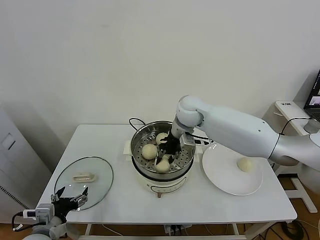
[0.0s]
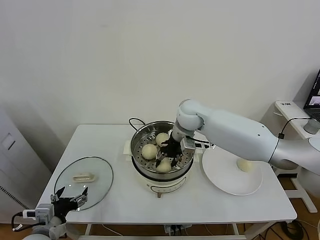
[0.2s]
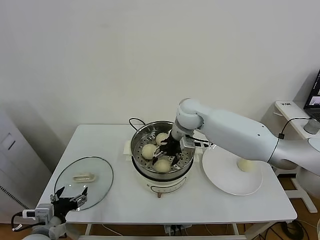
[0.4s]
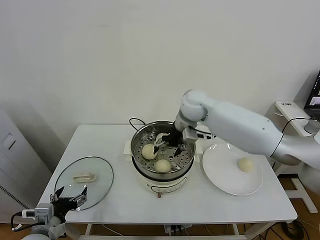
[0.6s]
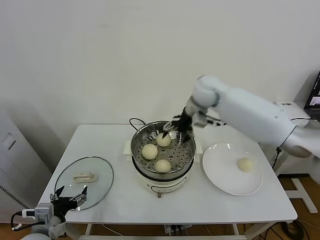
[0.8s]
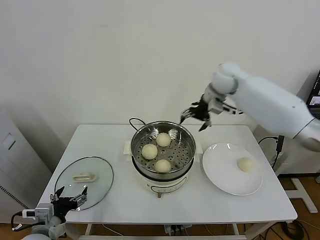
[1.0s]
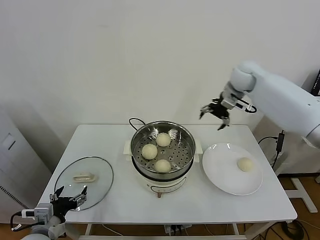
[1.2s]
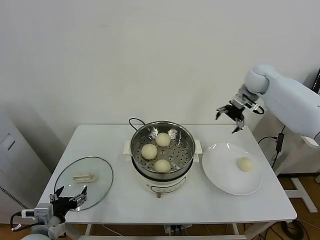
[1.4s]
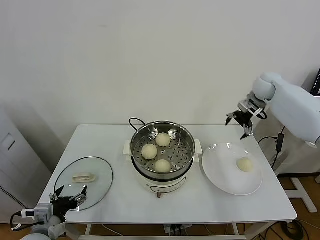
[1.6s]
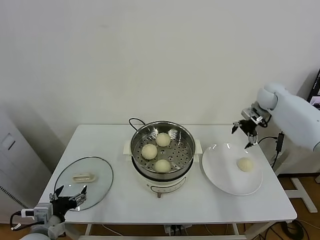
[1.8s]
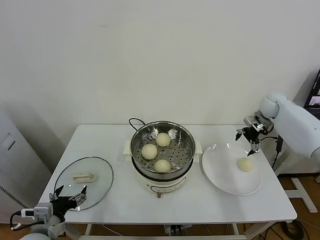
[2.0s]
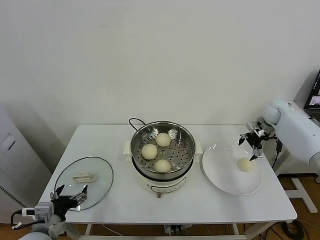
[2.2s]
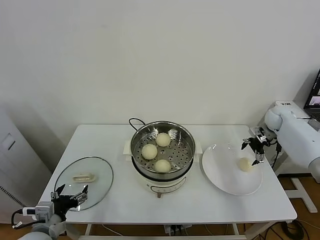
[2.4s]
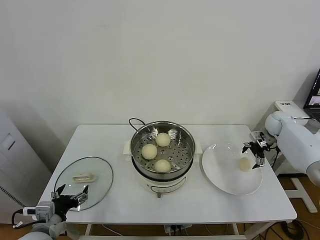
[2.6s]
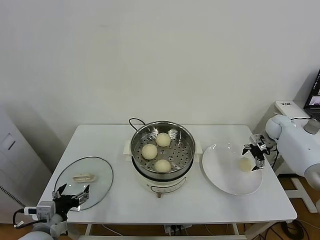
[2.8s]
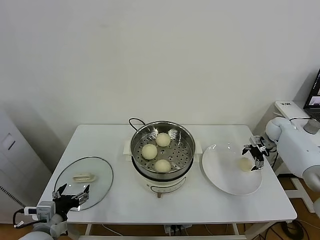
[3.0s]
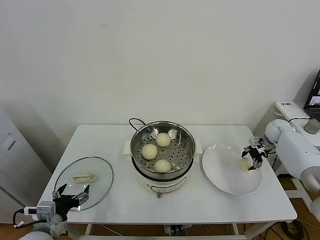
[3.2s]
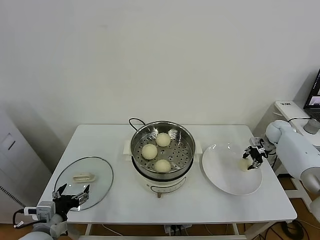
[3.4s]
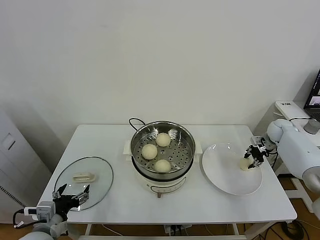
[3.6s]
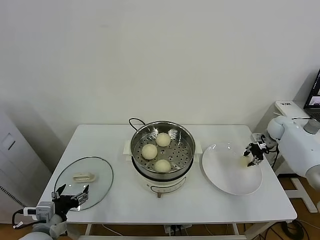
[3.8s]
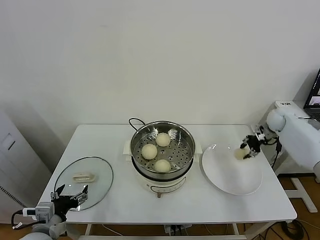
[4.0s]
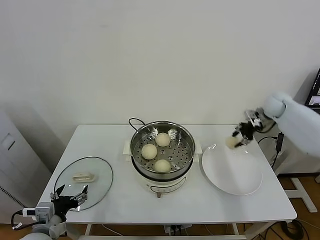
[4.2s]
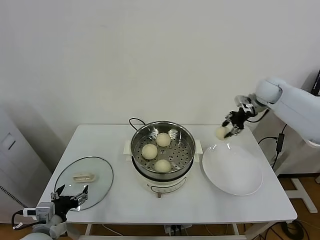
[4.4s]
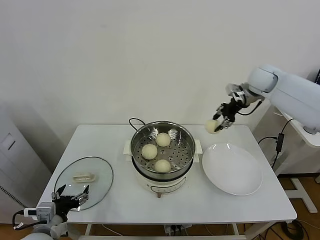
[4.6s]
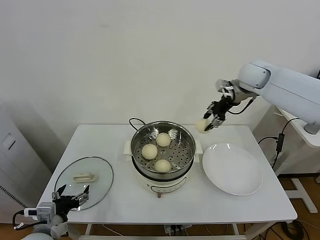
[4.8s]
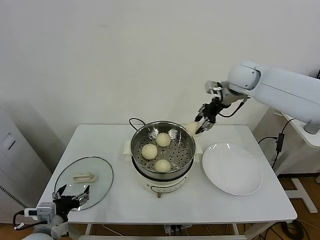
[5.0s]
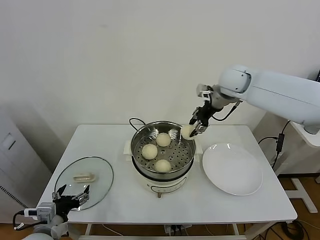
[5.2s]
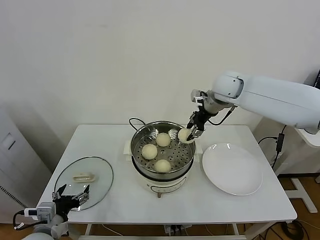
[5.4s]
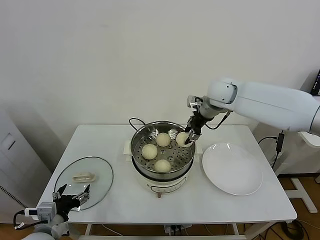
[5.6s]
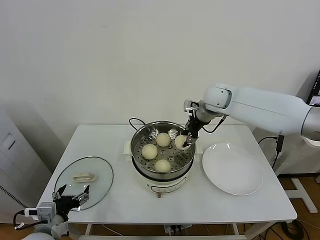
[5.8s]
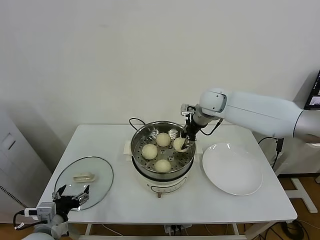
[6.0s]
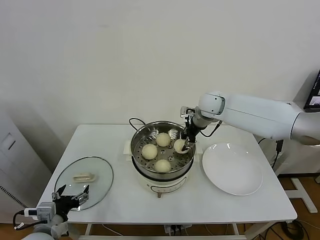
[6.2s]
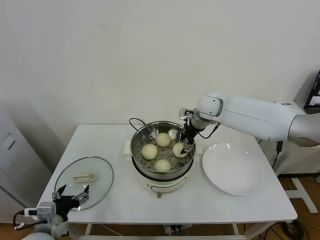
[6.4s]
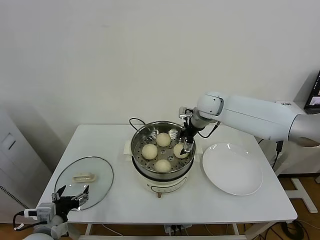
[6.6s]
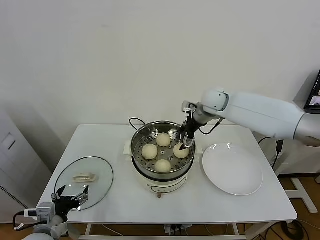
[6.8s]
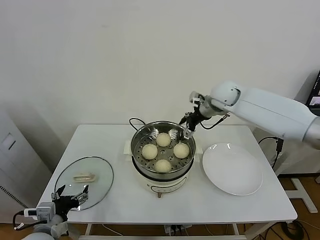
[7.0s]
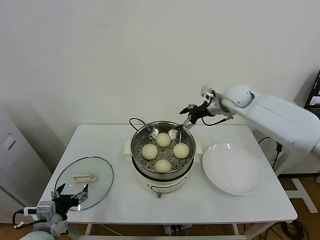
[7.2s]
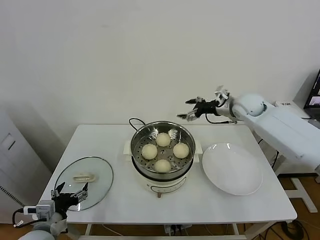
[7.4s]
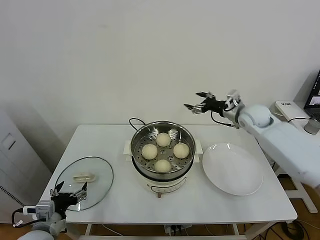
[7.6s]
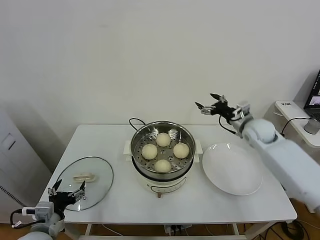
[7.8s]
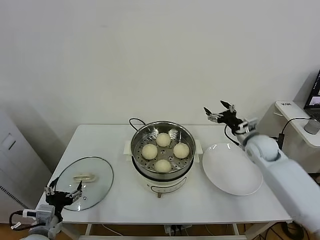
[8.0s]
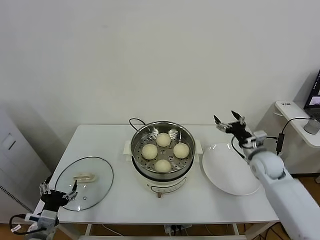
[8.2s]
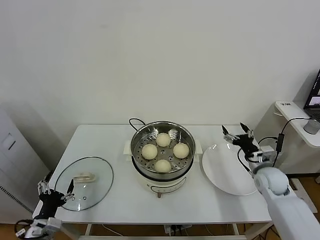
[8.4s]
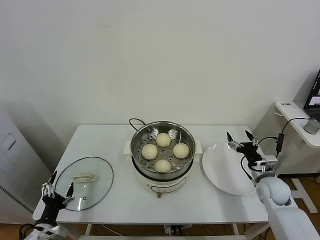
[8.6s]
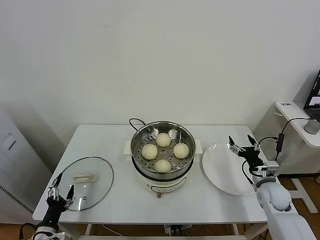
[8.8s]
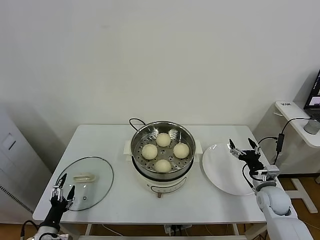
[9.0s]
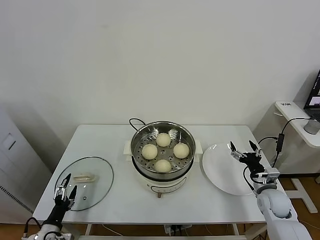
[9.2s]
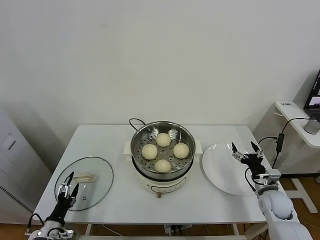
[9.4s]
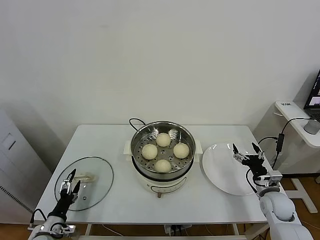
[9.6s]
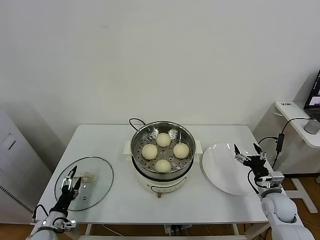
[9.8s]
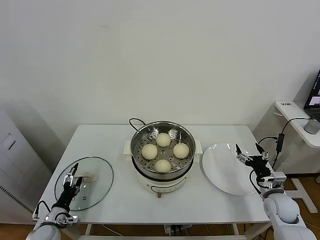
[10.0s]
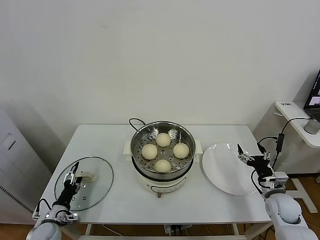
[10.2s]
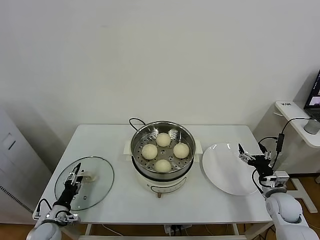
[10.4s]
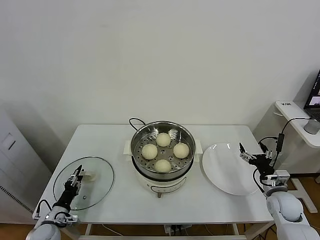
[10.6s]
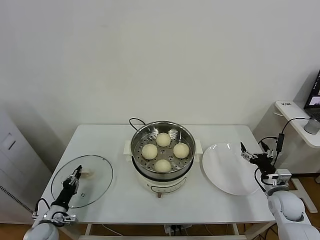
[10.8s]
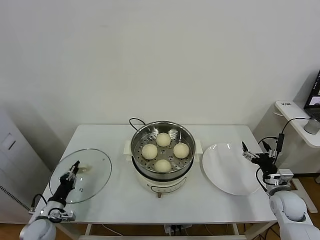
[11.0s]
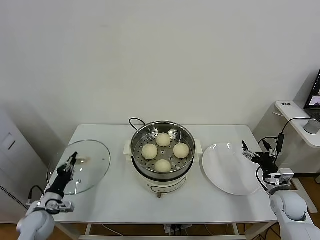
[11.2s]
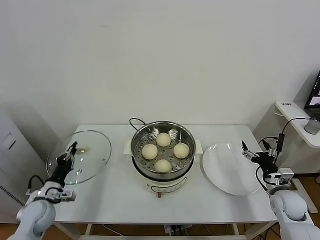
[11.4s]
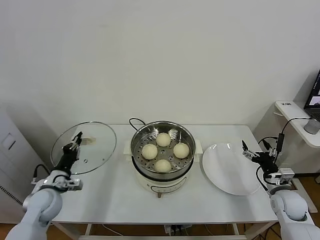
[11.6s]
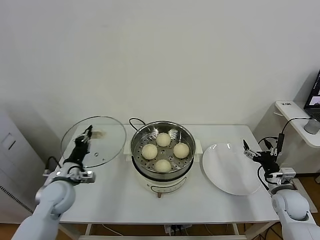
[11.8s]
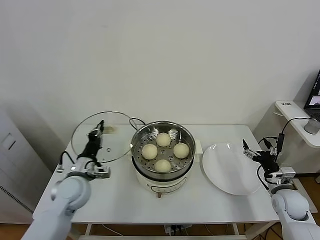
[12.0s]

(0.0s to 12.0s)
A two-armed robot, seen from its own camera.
Task of the whole recording: take steamed baozi put them in steamer.
Step, 0.6s - 3.6s: Grasp the baozi in the plate with right gripper.
Step, 3.8s - 6.6s: Place the baozi on the steamer with right gripper.
Step, 6.8s - 11.0s: Grasp the pot lid with left gripper.
0.0s - 1.6s: The right gripper travels to the right by about 30 cm, and opens.
1.6s - 3.0s: The right gripper travels downward and to the right by about 20 cm.
3.0s - 4.4s: The right gripper goes about 20 cm upward and to the left, and closes up.
4.4s - 6.0s: The right gripper heads to the left, covering approximately 20 cm.
6.0s - 7.6s: The right gripper is displaced to the right by some 15 cm, and opens its fingers.
7.6s - 9.0s: The right gripper shifts about 30 cm downward and backward; the left gripper heads downward and to the left, covering about 15 cm.
9.0s - 10.4s: The left gripper heads forward, covering some 10 cm.
10.4s - 12.0s: The left gripper travels upward and to the right by about 20 cm, and closes.

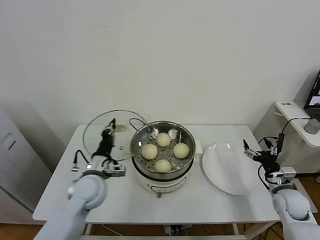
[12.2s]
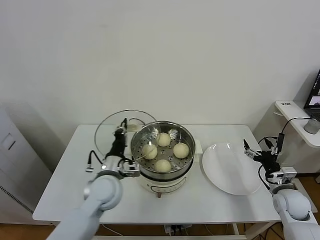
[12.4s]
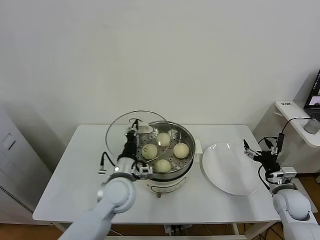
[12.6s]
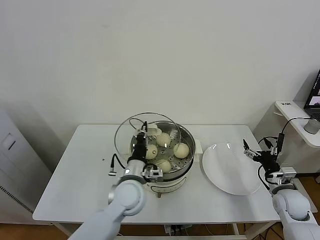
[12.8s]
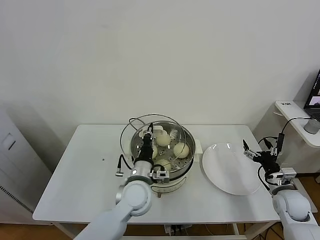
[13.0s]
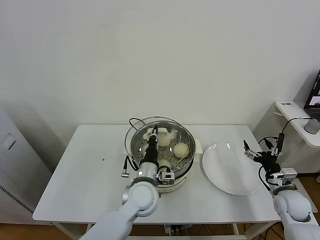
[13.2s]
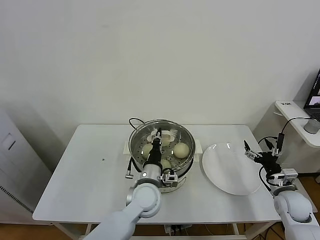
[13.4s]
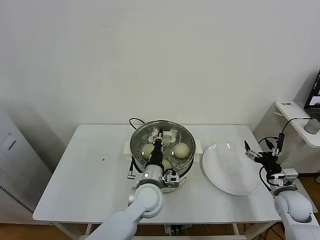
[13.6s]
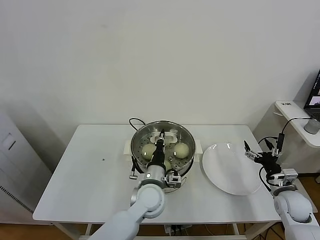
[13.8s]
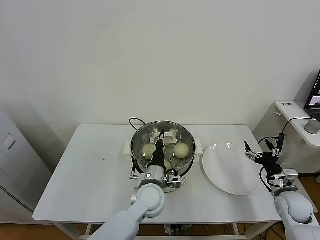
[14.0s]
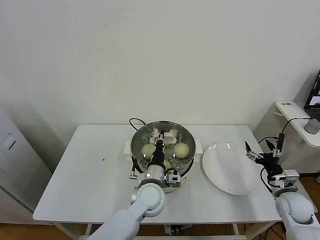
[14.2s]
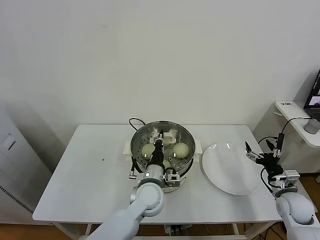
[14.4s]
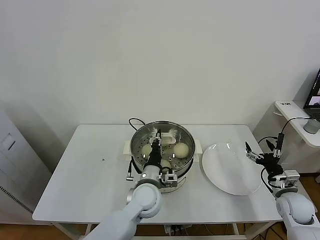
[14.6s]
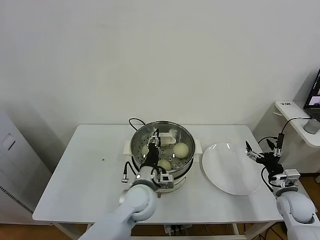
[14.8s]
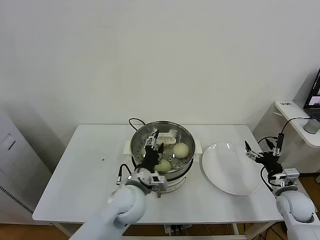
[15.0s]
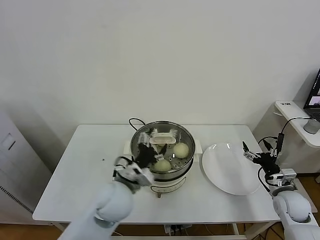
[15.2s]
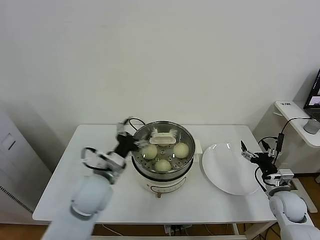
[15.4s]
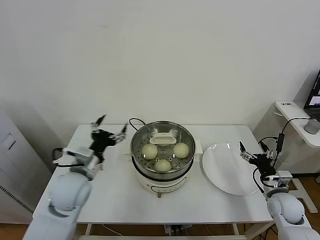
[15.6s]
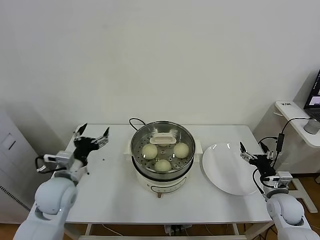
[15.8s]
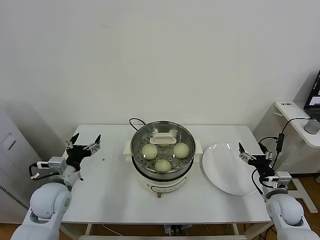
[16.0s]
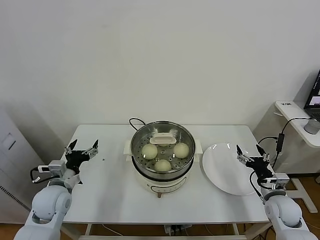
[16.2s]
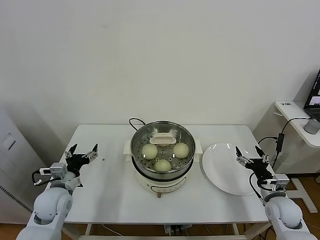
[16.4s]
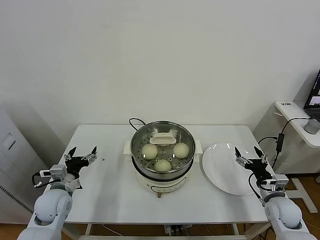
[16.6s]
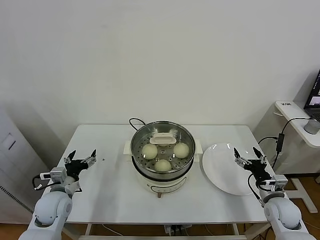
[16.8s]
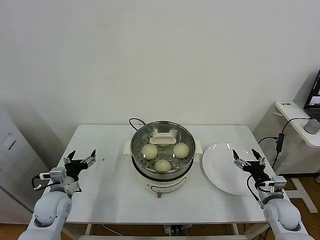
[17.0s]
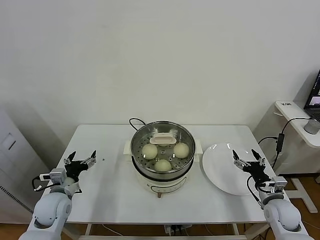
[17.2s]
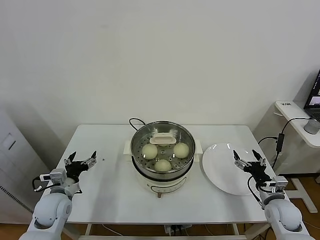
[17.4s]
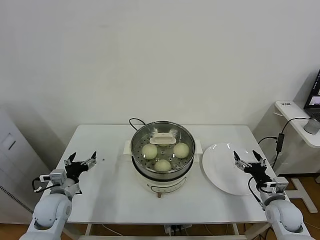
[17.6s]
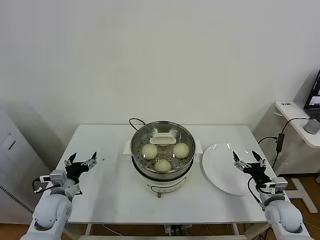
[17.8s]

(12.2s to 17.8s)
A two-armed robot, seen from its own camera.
Task of the whole recording: take steamed baozi put them in steamer.
Step, 12.2s - 15.2s: Place the pot lid on the steamer with left gripper.
12.2s - 13.6s: The left gripper is displaced to the right by roughly 20 cm.
13.6s - 15.0s: The left gripper moves some 5 cm, and opens.
15.0s - 16.4s: The left gripper moves to the left, some 25 cm, and opens up.
16.4s - 17.8s: The grippers make only small movements.

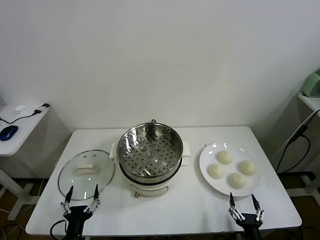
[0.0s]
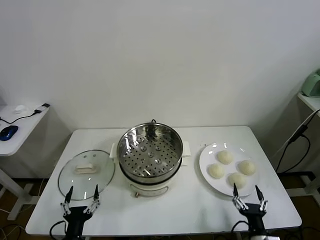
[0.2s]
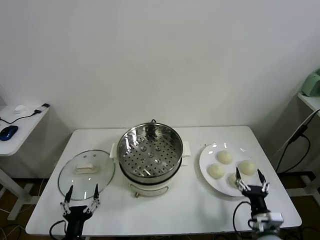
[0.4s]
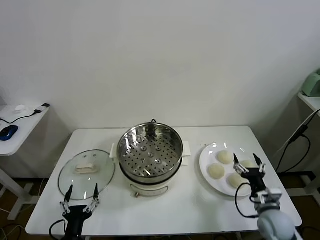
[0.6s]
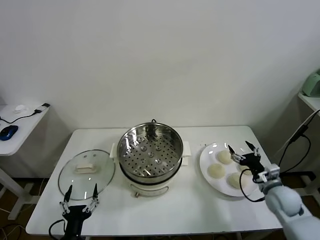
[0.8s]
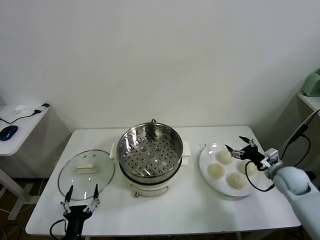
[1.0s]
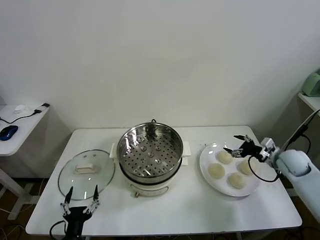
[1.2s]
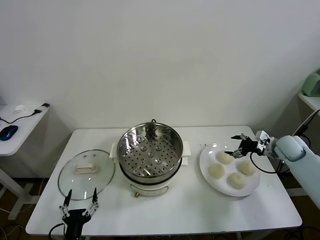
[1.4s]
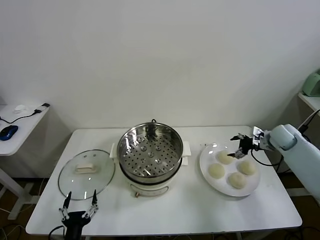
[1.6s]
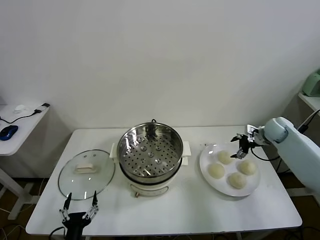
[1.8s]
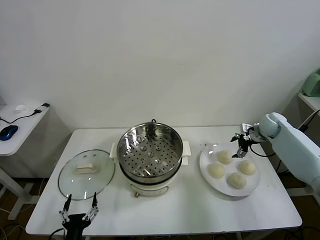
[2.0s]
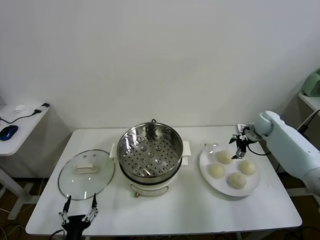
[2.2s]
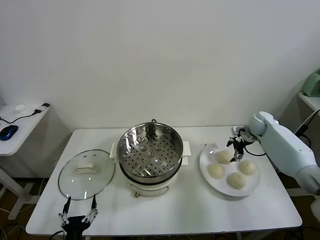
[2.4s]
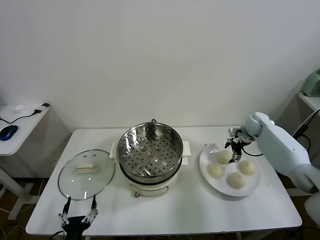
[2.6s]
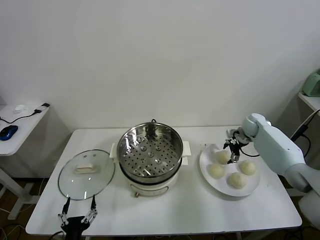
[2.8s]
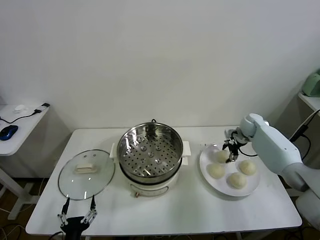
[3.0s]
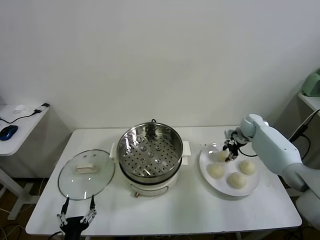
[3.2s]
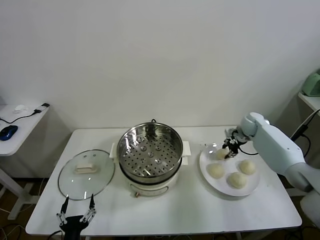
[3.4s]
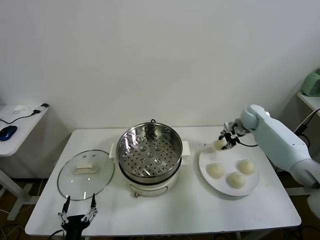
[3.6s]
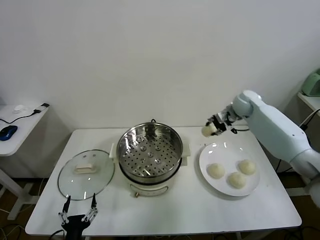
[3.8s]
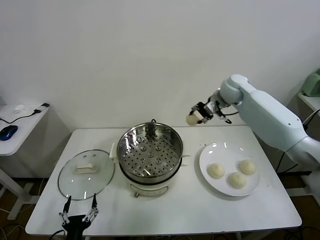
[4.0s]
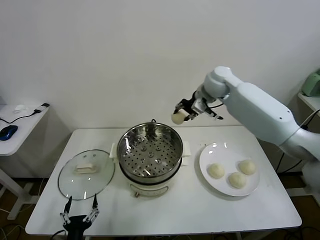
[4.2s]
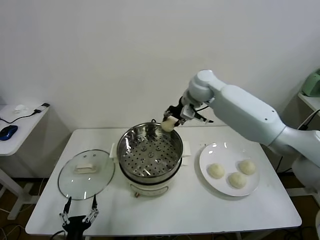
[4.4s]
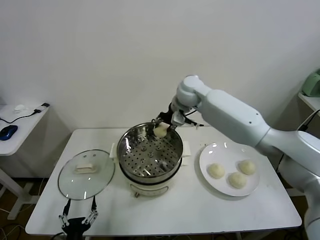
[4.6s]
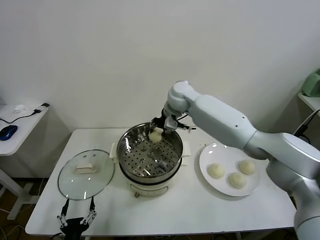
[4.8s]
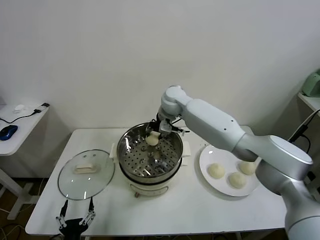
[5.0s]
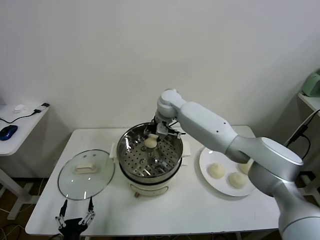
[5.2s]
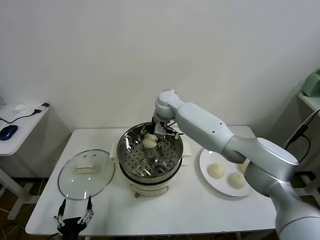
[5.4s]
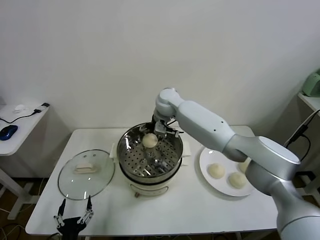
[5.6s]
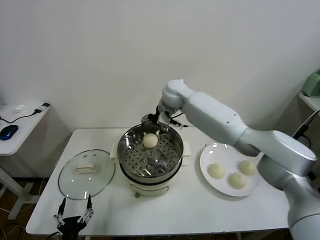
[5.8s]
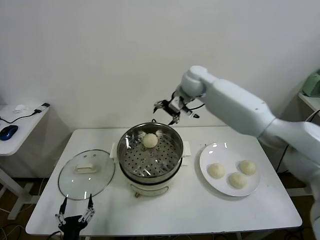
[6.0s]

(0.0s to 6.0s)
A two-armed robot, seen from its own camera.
Task of the whole recording: take steamed baozi put them in steamer.
Step, 0.0s - 3.2s: Grasp the baozi in the plate with right gripper.
Step, 3.4s - 5.6s: Place the baozi on the steamer with right gripper.
1.6s - 3.0s: The right gripper moves forward and to the left, some 10 cm, and closes up.
3.0s - 4.4s: The right gripper is displaced to the left and upward by about 35 cm.
4.4s - 6.0s: The right gripper travels to the left and back again, about 10 cm each way, and opens.
